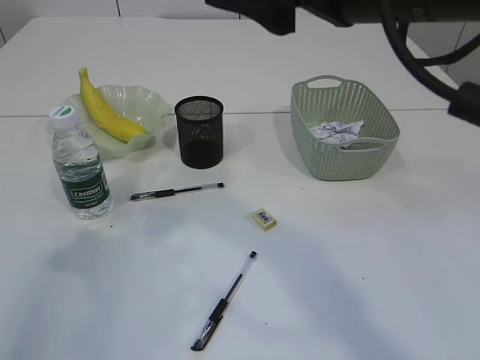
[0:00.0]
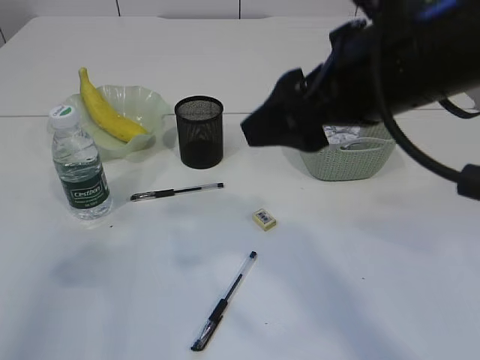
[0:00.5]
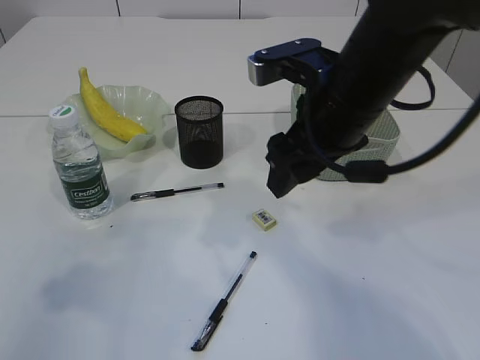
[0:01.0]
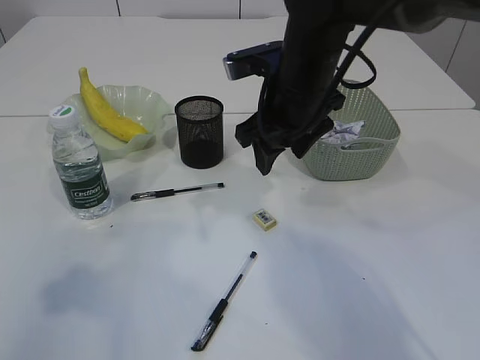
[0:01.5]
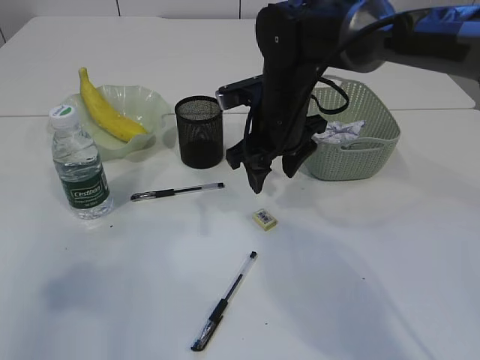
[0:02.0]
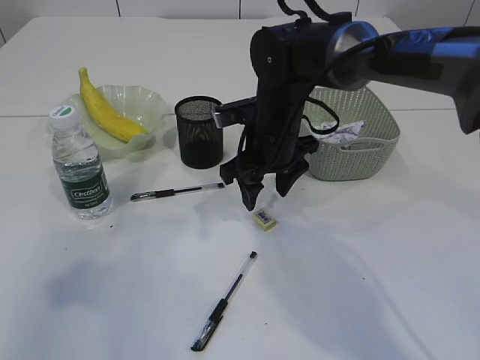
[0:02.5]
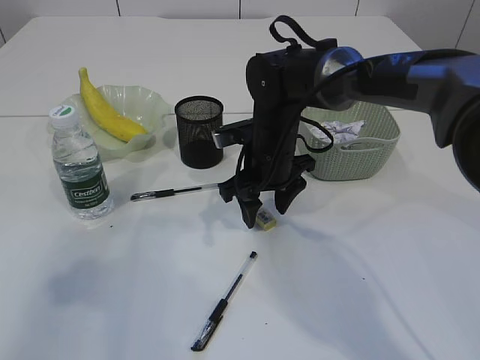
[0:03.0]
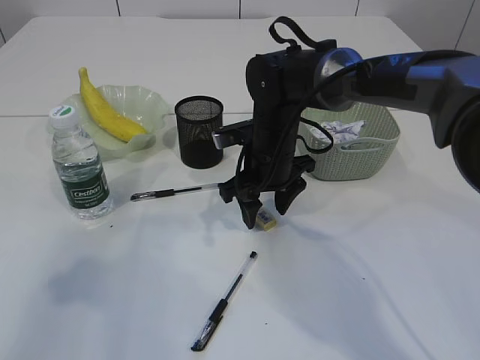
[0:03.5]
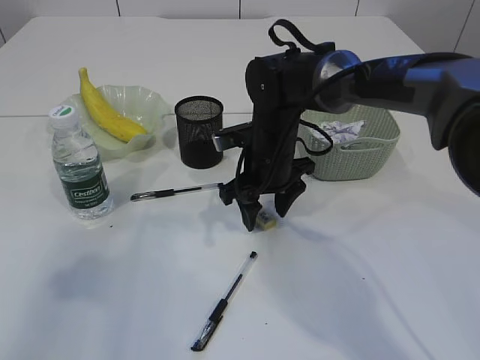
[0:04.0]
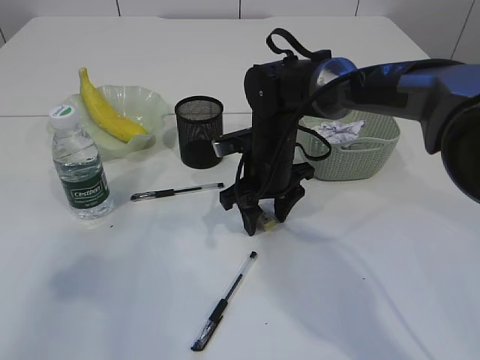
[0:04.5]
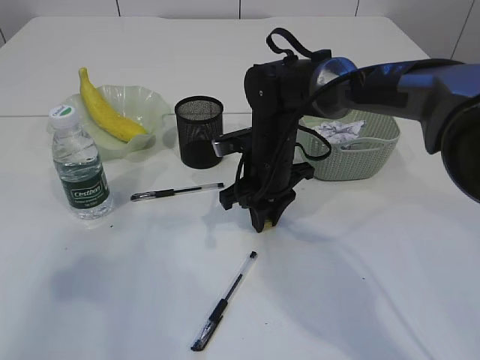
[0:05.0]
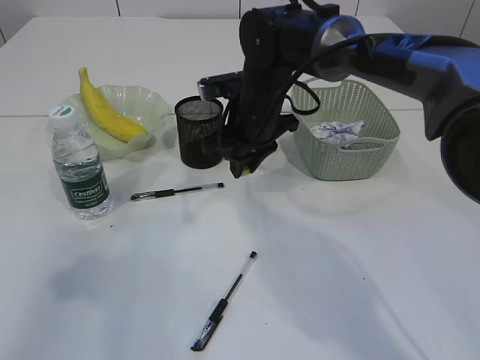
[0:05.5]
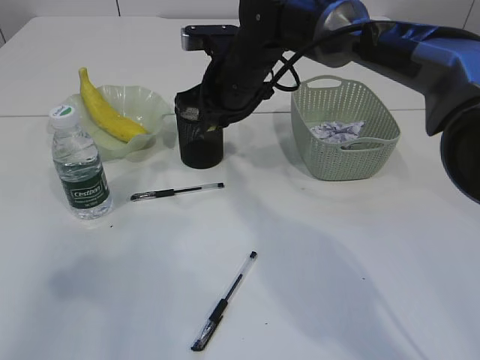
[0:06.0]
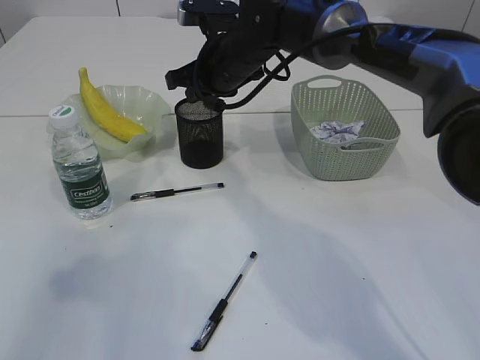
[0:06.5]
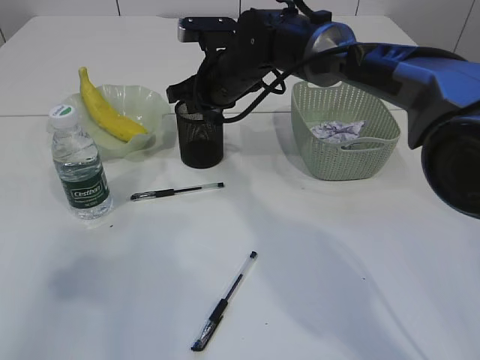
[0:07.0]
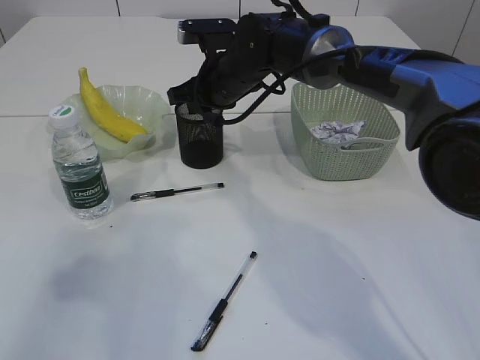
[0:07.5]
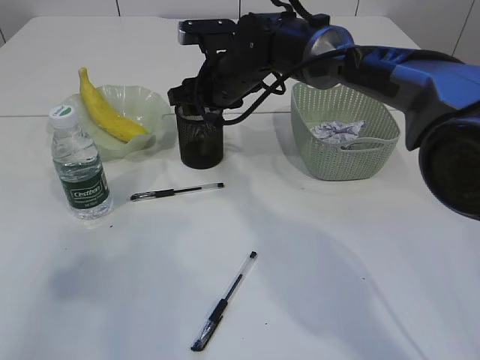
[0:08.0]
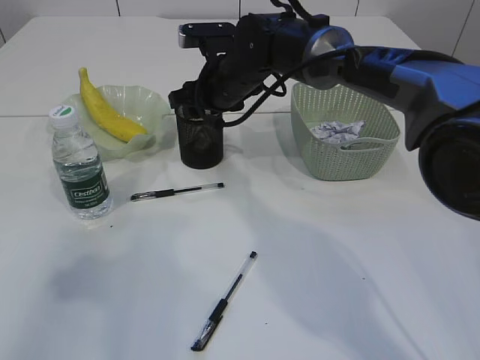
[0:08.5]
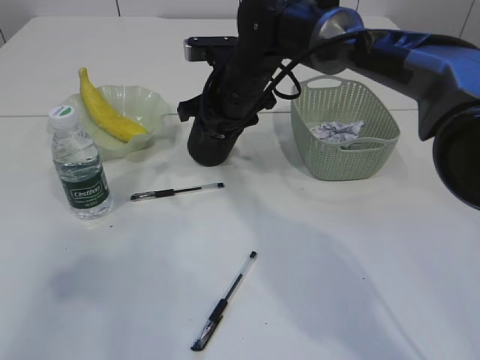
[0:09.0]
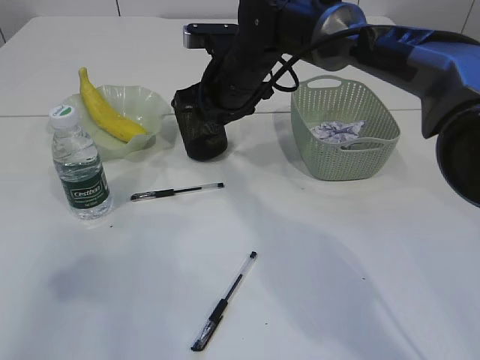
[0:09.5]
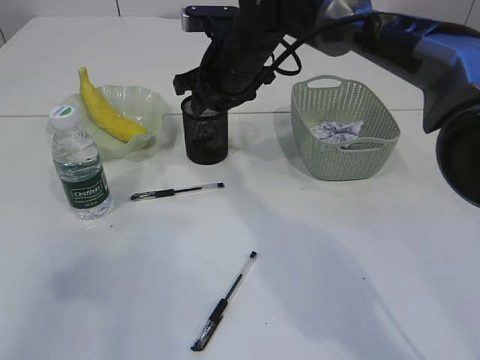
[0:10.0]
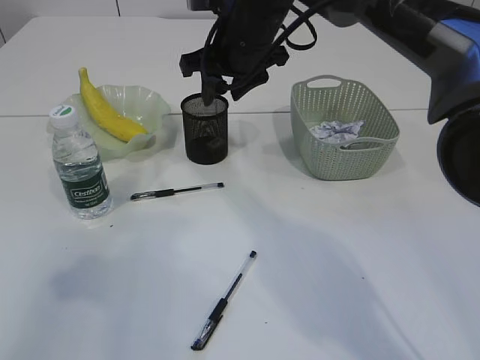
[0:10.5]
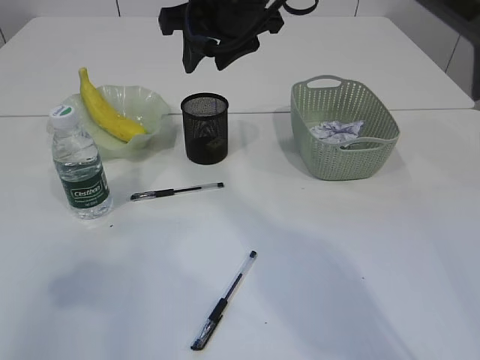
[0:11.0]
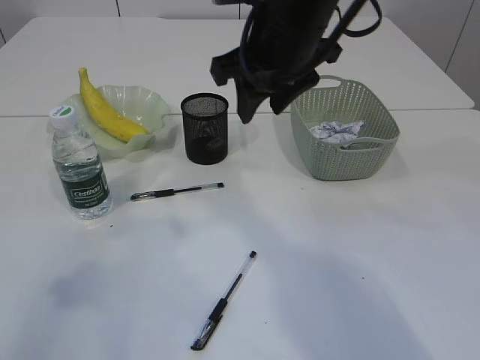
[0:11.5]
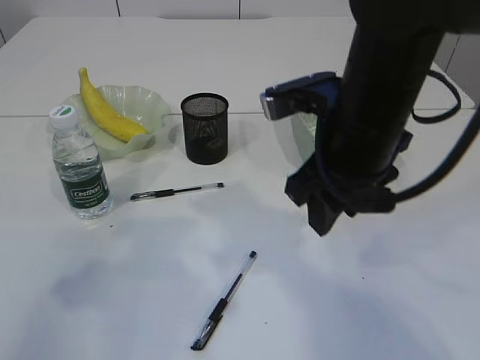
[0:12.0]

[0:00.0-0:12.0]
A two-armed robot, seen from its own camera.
Step, 0:00.0 to 0:05.5: Pick up the eraser.
Step, 0:06.0 to 0:11.0: Place the eraser into the pen holder.
0:00.0 to 0:02.0: The right gripper travels downward and forward by approximately 25 cm.
0:02.0 to 0:04.0: The right gripper is displaced downward by roughly 5 cm.
0:04.0 to 0:06.0: The right gripper shifts roughly 10 cm upward, and closes.
0:06.0 to 0:08.0: The right gripper opens its fingers.
0:08.0 to 0:10.0: The grippers make only small movements.
0:10.0 to 0:12.0: The right gripper heads backward and to the right, covering approximately 20 cm.

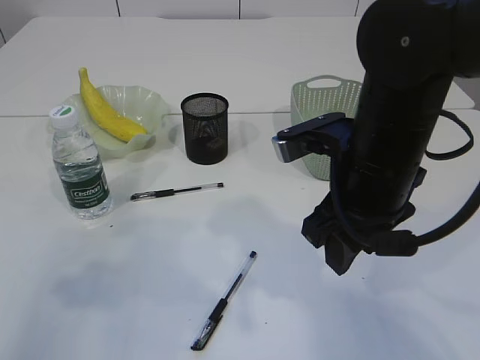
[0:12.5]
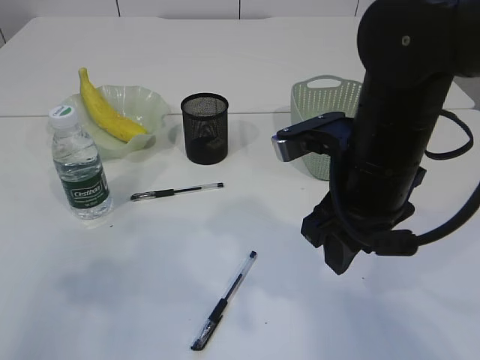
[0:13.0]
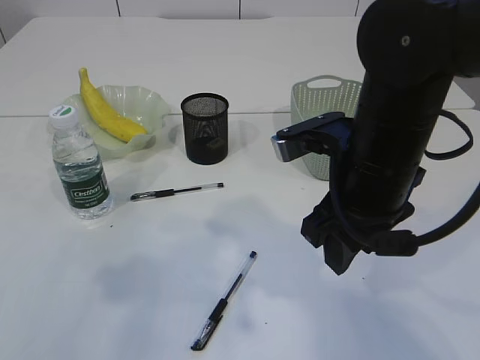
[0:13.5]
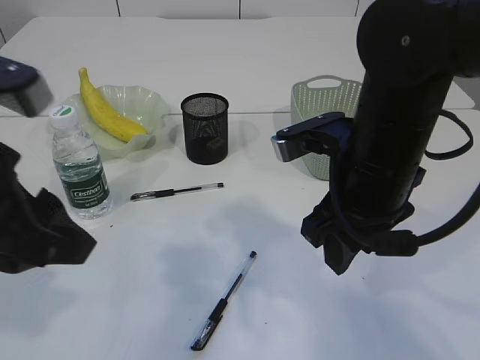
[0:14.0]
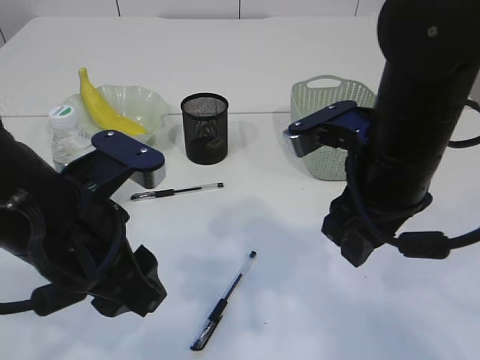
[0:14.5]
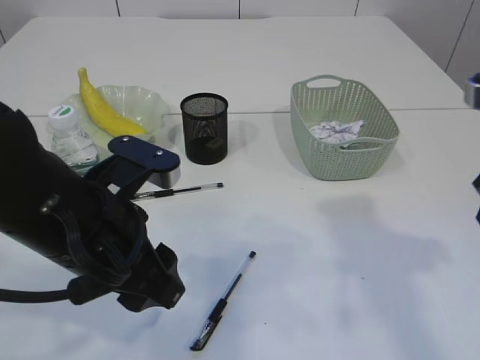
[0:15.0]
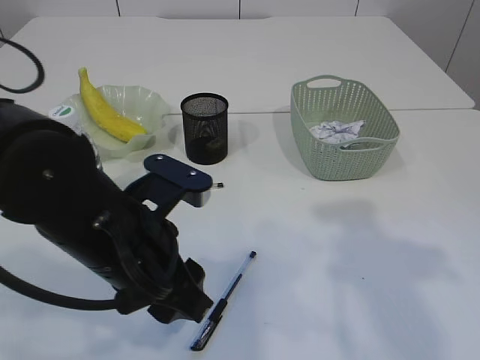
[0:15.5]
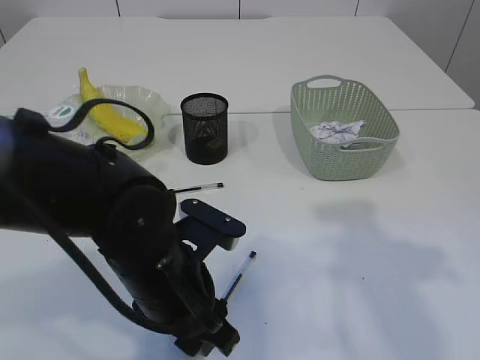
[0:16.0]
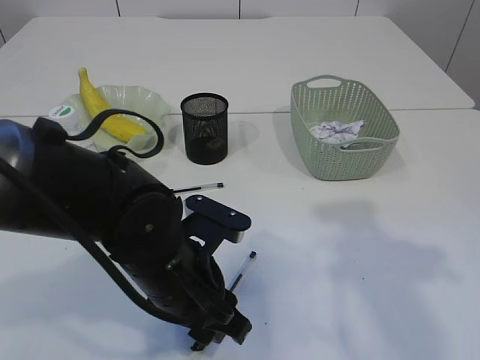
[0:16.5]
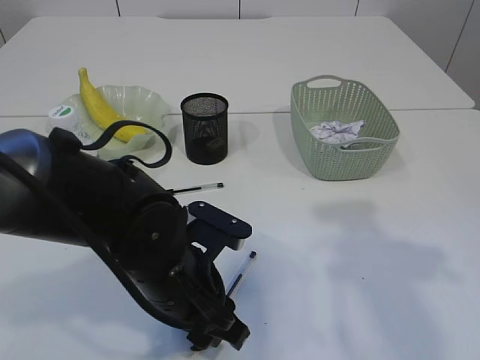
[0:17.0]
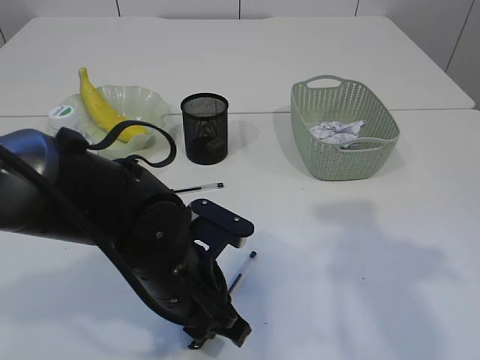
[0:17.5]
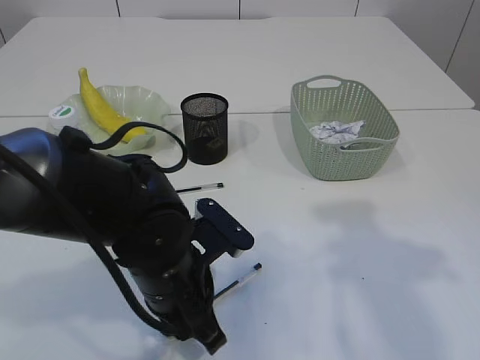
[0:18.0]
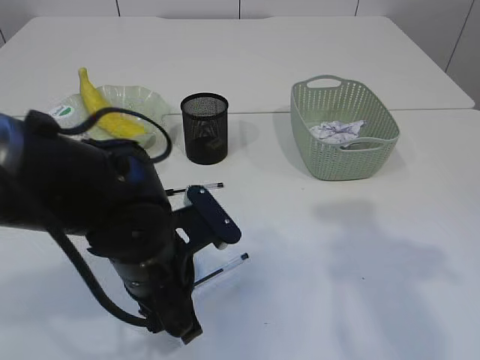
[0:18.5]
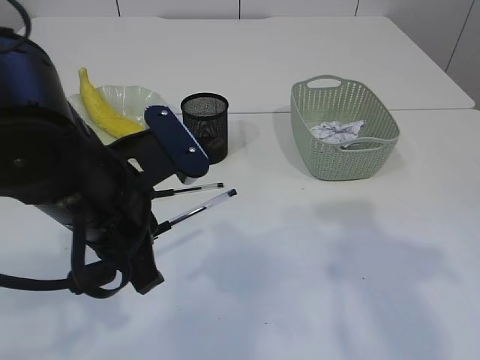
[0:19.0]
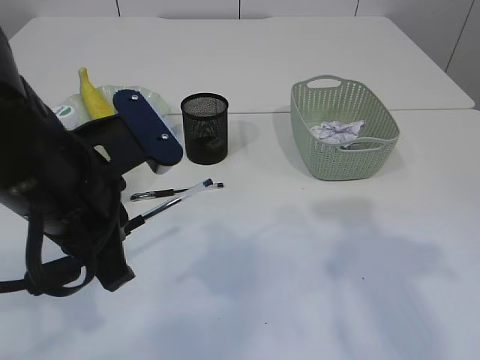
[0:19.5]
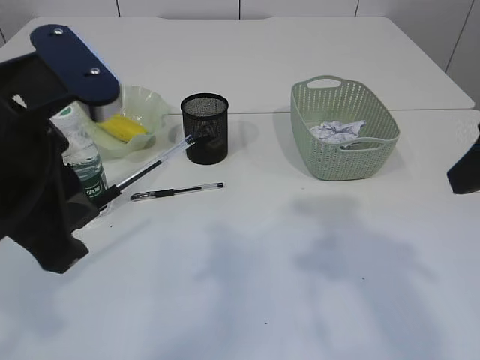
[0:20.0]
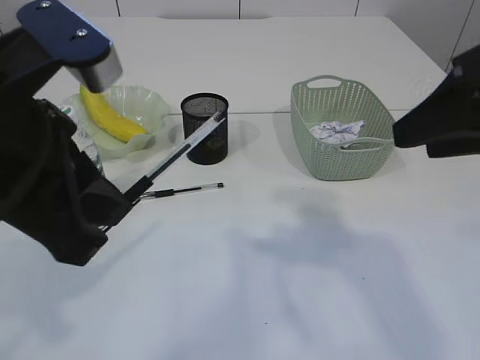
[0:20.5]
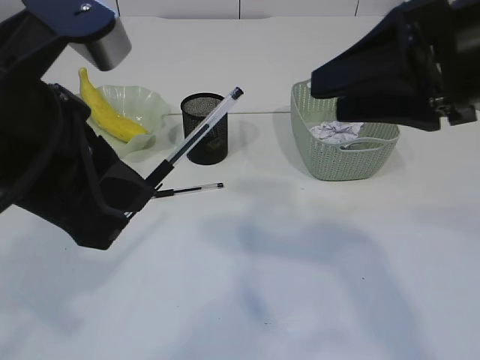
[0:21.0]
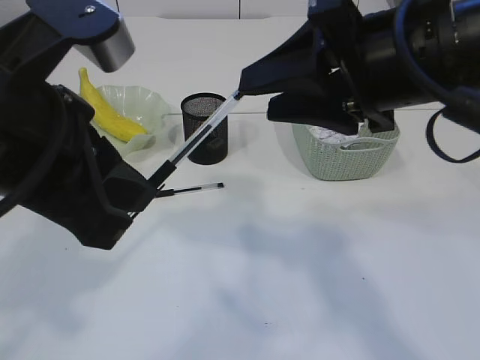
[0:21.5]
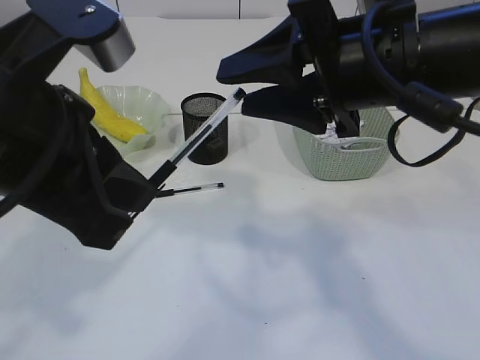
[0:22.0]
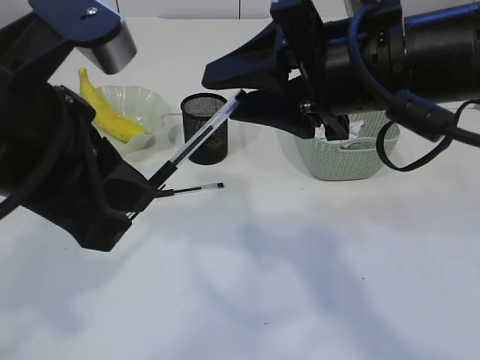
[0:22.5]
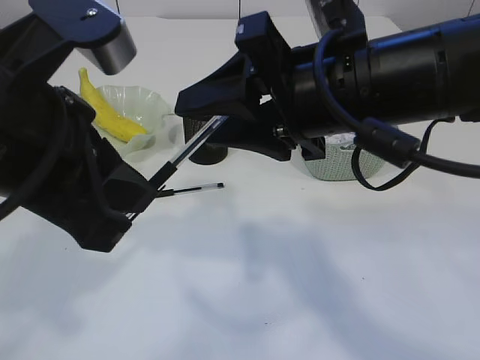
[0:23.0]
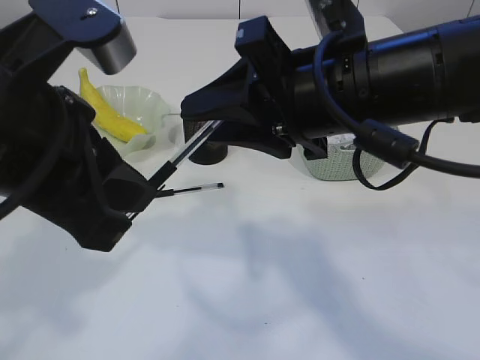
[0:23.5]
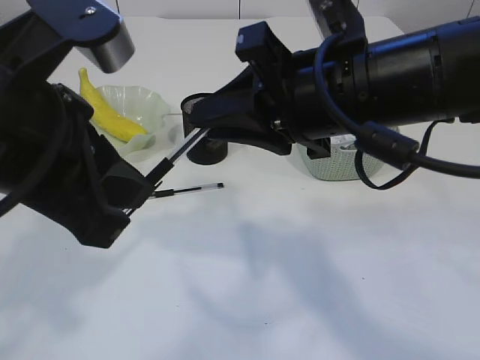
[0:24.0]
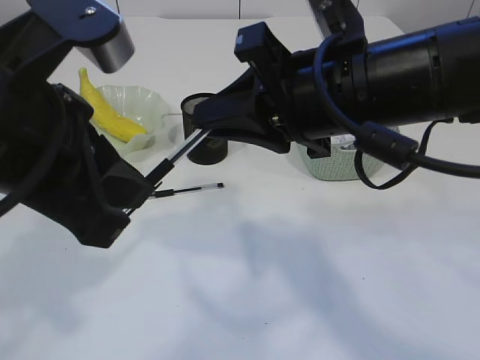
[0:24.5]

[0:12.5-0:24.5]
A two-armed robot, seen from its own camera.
Step, 0:12.5 to 0:19.0: Pick up the pen with left arm.
0:12.5 to 0:14.5: The left gripper moves to the right and downward, about 20 cm.
0:14.5 to 0:16.5: The right gripper is displaced to the right, upward and backward by some 15 cm, while the left gripper heads downward and to the right, covering roughly 10 cm.
0:16.5 to 0:18.5: The left gripper closes up.
0:18.5 to 0:20.5: The left gripper goes some 20 cm upward.
0:20.5 to 0:22.5: The right gripper moves to the left, some 10 cm.
0:22.5 to 0:24.5: The right gripper closes its fingers.

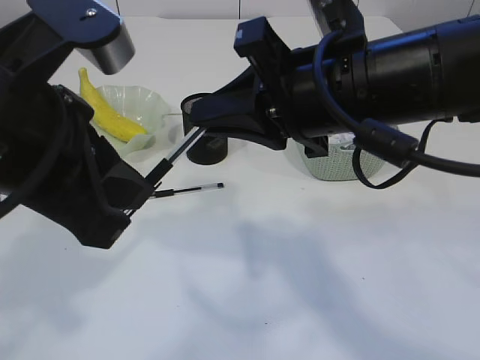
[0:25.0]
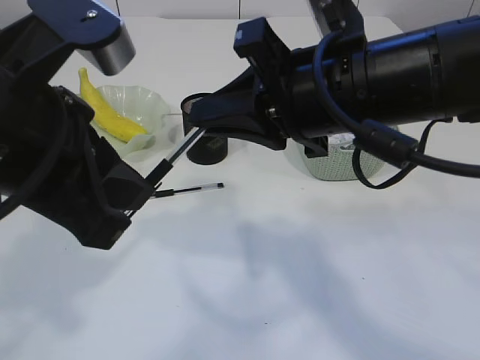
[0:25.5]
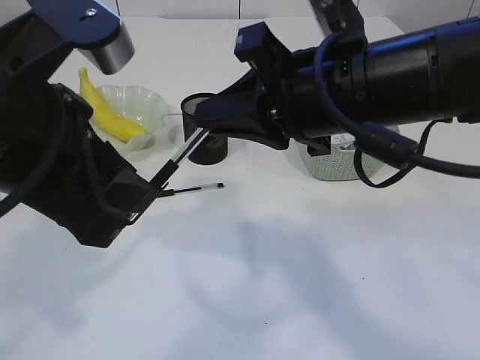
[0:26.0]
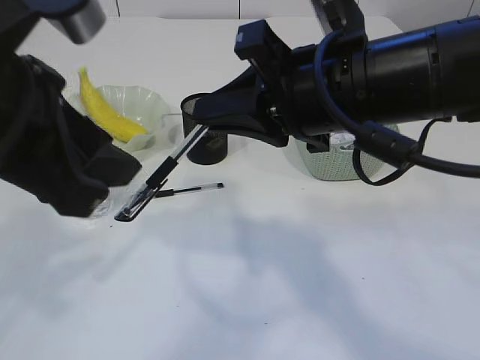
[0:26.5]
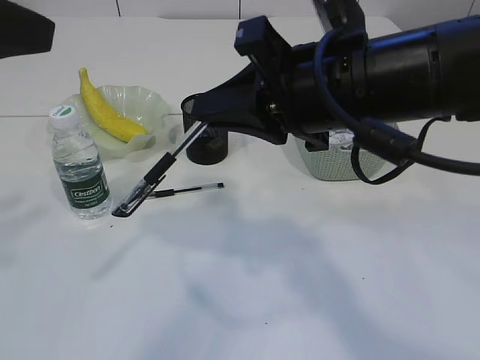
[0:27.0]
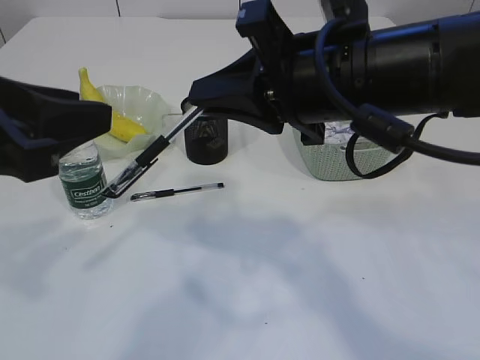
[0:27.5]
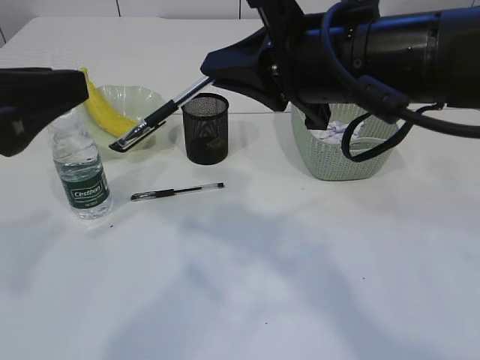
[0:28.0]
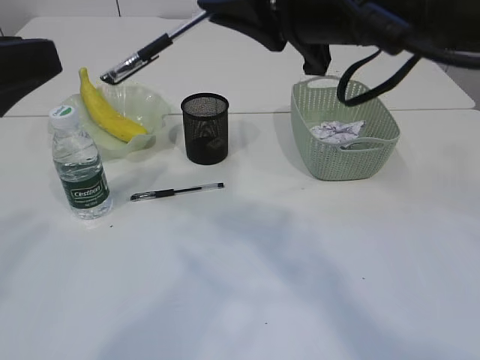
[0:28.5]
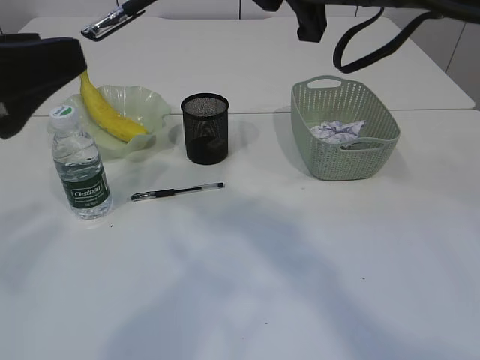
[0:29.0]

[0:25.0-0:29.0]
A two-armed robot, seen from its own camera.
0:25.0 to 0:27.0: The left gripper heads to the left and upward, covering about 10 cm, and opens.
0:27.0 to 0:29.0: The right gripper travels upward by roughly 5 cm, while the left gripper heads downward, covering some 5 cm.
